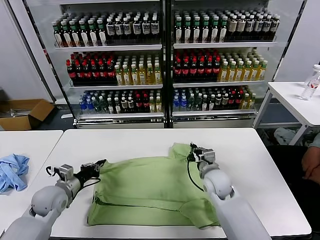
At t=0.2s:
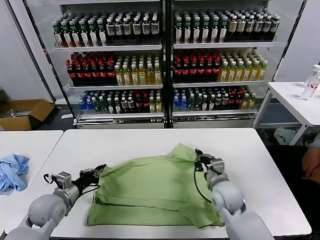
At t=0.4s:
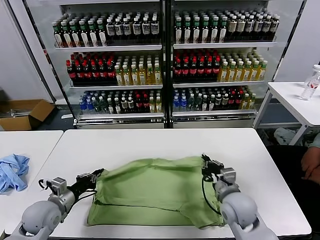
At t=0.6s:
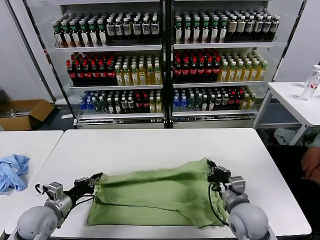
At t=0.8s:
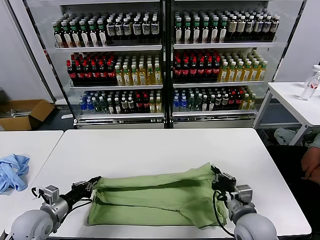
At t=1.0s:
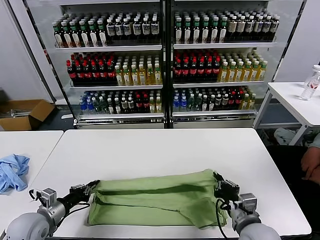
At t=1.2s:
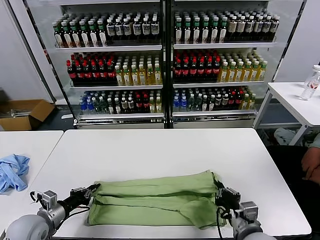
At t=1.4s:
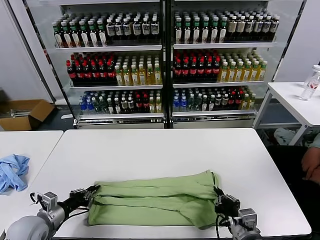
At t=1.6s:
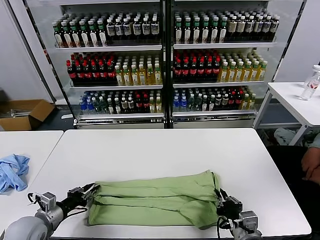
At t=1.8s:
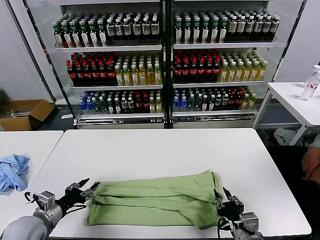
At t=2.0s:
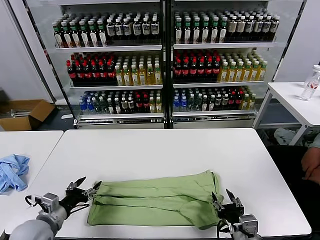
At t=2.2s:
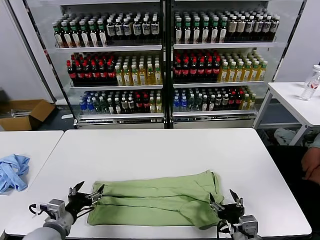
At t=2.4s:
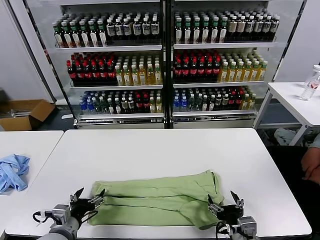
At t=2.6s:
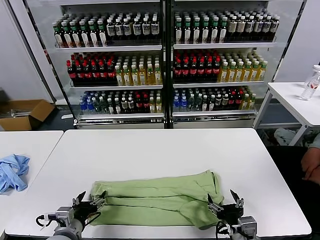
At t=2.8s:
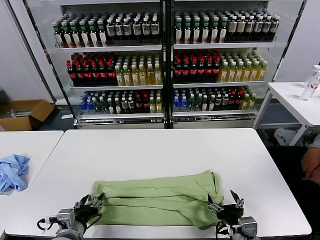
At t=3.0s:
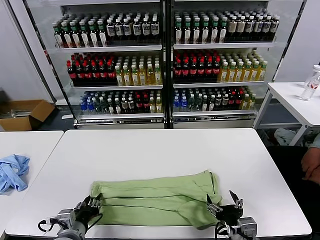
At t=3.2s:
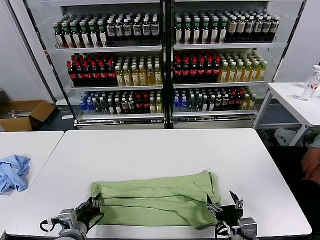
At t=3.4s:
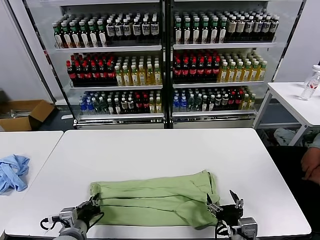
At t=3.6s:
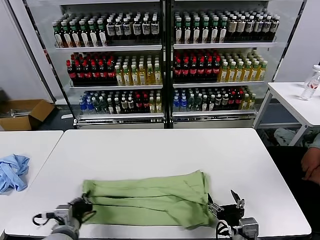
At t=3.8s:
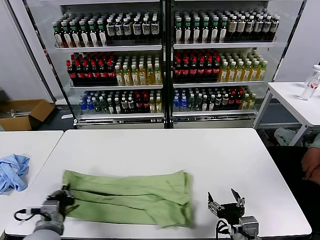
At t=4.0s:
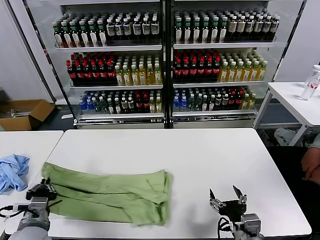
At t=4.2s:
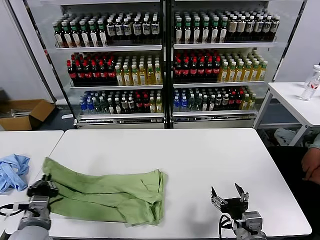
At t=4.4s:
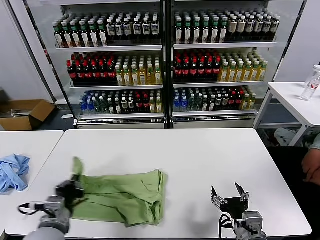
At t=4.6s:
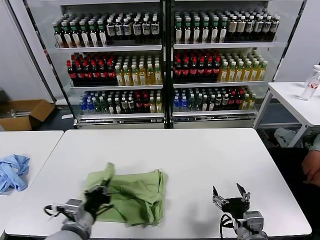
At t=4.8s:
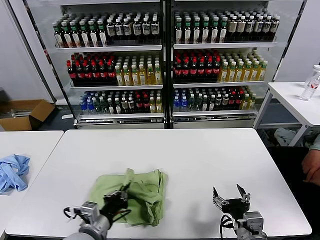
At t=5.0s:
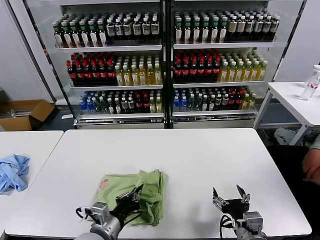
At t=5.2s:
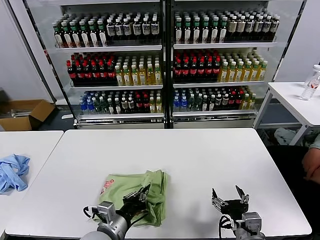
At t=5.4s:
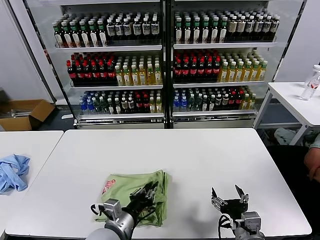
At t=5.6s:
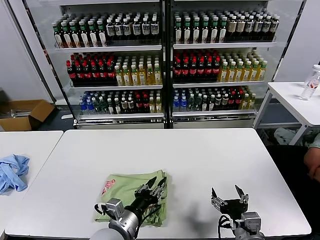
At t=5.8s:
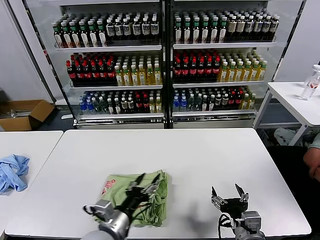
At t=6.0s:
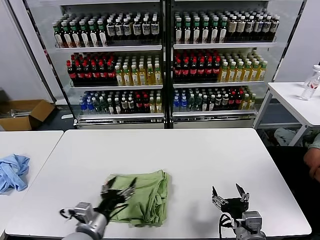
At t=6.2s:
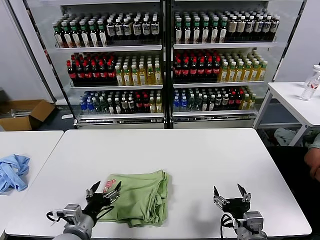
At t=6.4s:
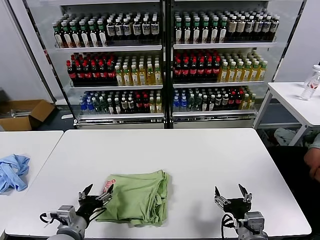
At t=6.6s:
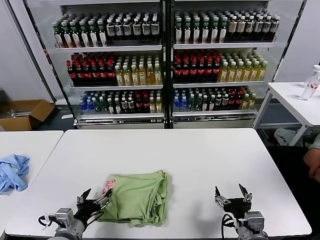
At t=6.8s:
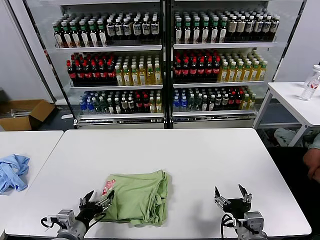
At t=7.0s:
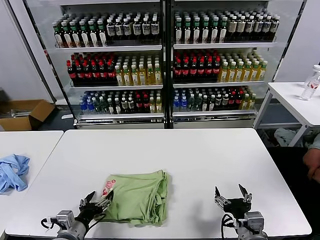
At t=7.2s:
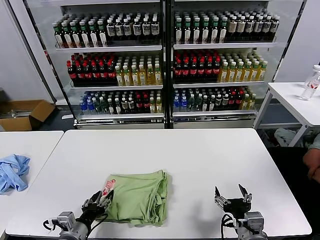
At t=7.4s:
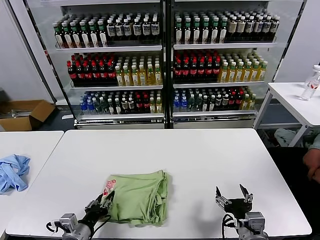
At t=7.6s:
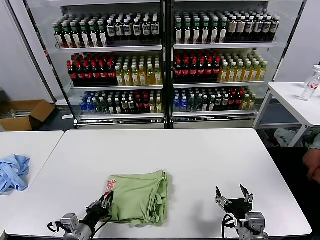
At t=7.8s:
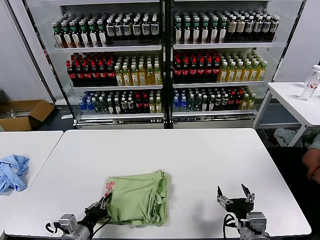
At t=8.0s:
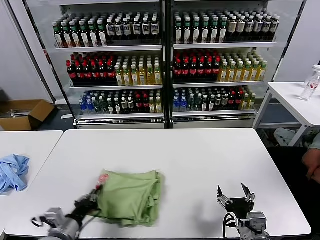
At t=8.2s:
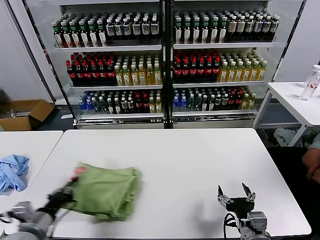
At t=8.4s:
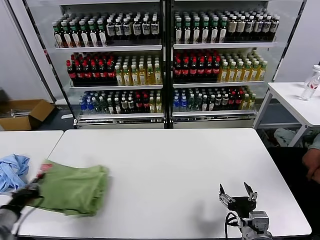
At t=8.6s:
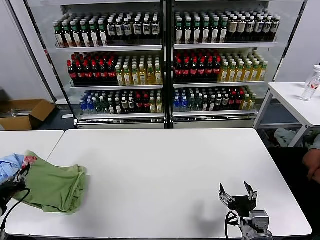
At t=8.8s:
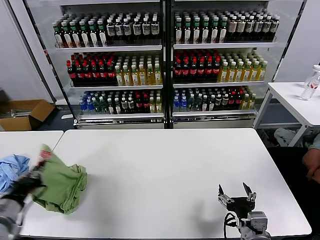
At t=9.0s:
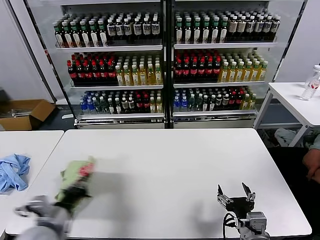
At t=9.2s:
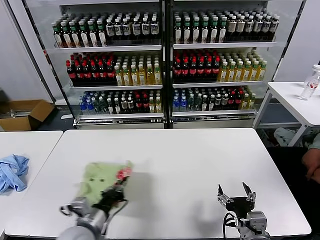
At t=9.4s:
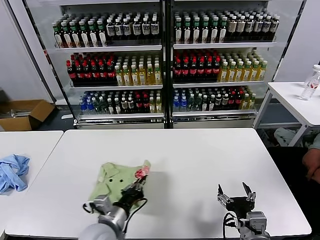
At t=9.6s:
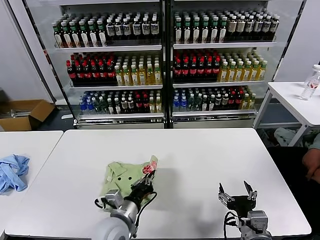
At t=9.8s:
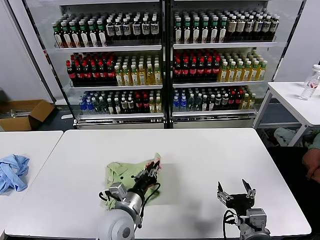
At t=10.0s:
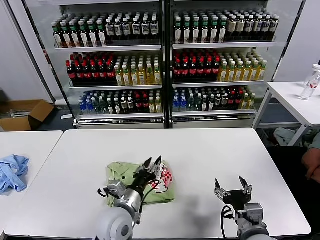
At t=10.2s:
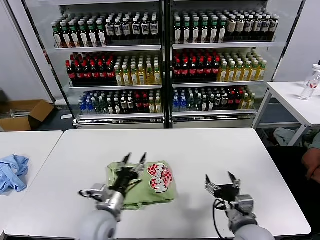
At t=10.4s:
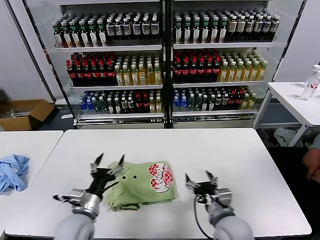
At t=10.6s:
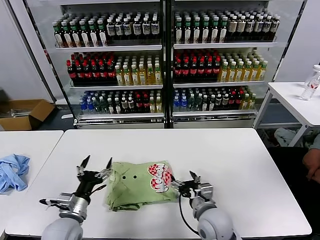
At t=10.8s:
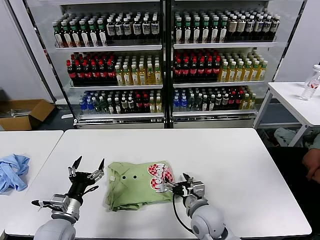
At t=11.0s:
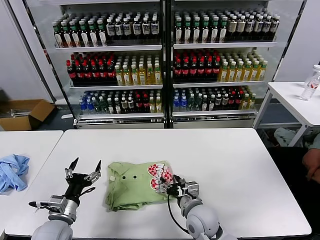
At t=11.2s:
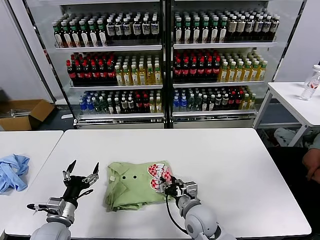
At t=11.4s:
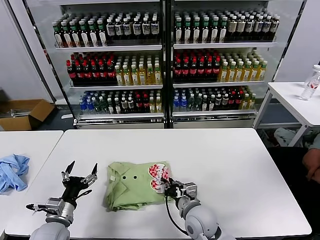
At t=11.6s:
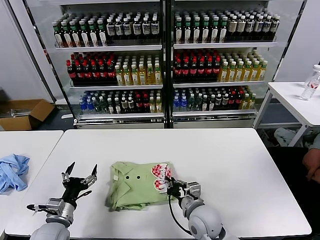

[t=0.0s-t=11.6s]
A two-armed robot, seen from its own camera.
Task of the whole recording: fold and organize the clothes.
Step, t=0.0s to t=1.6s: use both grippers to drag the upper edge of the fabric backward and fold it over the lower edge.
Step, t=1.8s to t=3.2s: use the left gripper to clamp the left edge of the fabric.
Step, t=3.6s to t=5.6s: use the left gripper to drag the left edge of the fabric to the left and folds it over the right edge.
Step, t=5.8s to t=10.0s: Flip the folded clothes over with left gripper.
t=0.0s to t=1.4s: The right gripper moves backward, approximately 20 cm; the left gripper moves backward, about 10 cm.
t=1.4s to t=2.8s: The right gripper opens its fingers; the left gripper shifts some 15 cm to the right and backward, and opens up.
t=2.8s to t=4.4s: The left gripper shifts some 5 cm upward, and closes its fingers.
t=4.4s to t=5.8s: The left gripper heads to the right, covering roughly 15 cm, and opens up.
t=5.8s to t=7.2s: The left gripper moves to the left and downward, about 15 cm.
t=7.2s to t=8.8s: The left gripper heads upward and to the left, covering some 20 cm, and closes.
t=8.8s to t=10.2s: The left gripper goes about 25 cm to the right, and opens its fingers.
t=10.2s to t=11.6s: The left gripper goes roughly 15 cm to the left. Meanwhile the right gripper is displaced to the left, forward and downward by roughly 15 cm, and closes.

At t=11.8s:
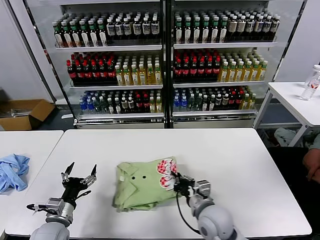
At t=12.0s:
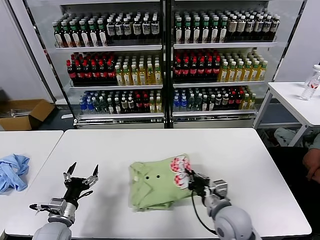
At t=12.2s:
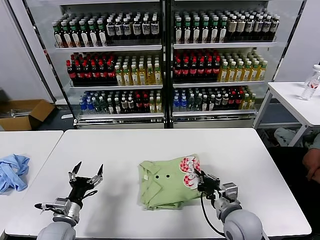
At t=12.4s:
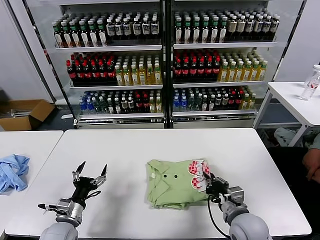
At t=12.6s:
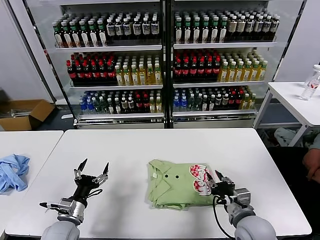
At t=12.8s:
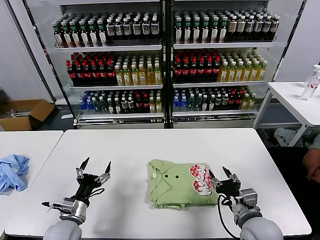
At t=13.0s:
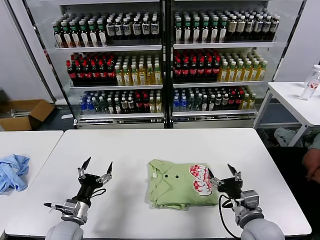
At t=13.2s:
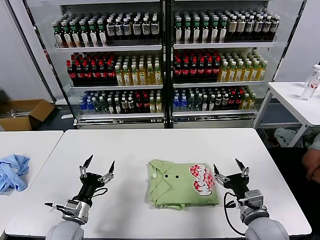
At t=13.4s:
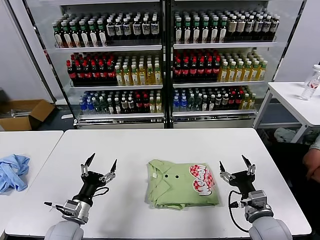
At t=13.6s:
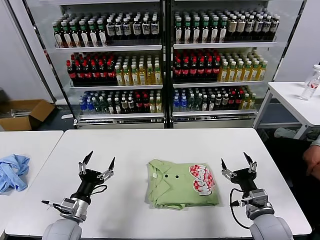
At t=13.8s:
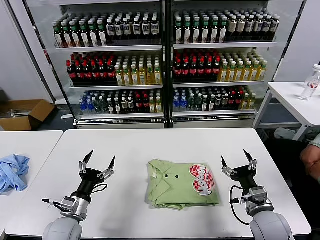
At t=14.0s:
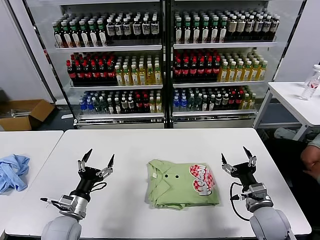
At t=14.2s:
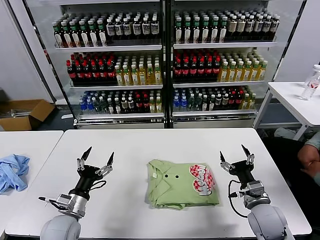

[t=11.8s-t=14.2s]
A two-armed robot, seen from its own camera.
Task of the whole recording: fold and organize the clothes.
t=11.8s to t=13.0s: The right gripper heads to the right and backward, covering roughly 10 cm, and opens.
t=13.0s to t=14.2s: The right gripper moves approximately 5 cm.

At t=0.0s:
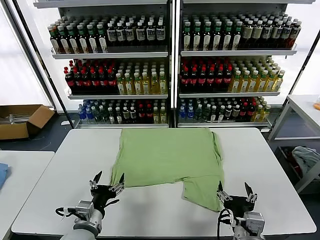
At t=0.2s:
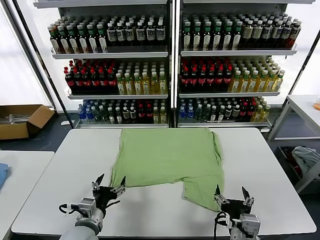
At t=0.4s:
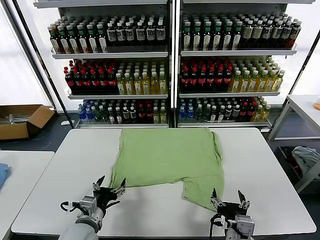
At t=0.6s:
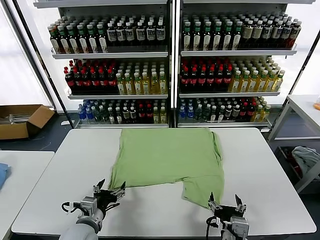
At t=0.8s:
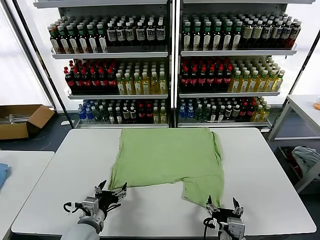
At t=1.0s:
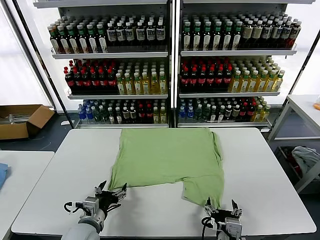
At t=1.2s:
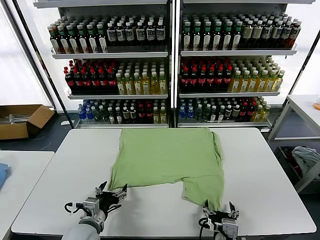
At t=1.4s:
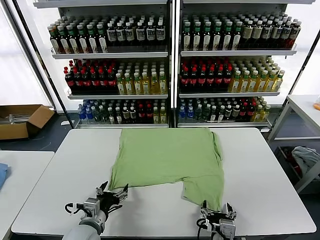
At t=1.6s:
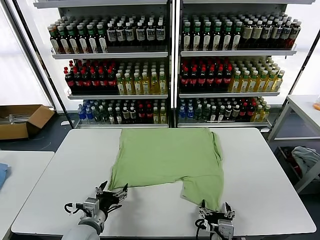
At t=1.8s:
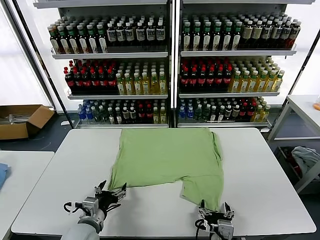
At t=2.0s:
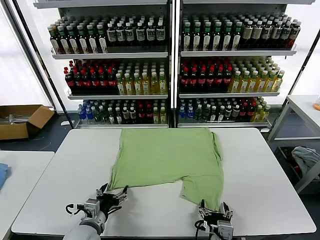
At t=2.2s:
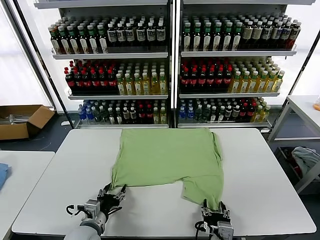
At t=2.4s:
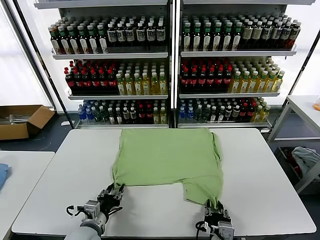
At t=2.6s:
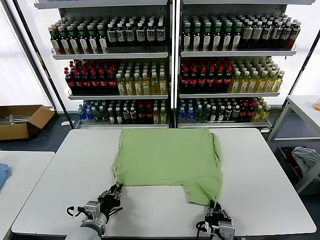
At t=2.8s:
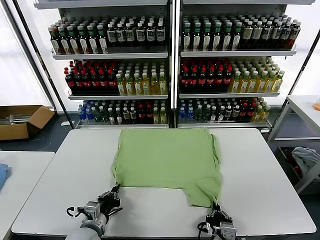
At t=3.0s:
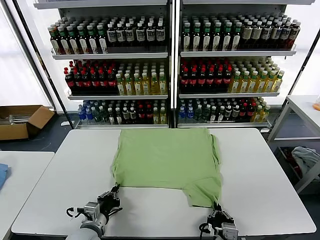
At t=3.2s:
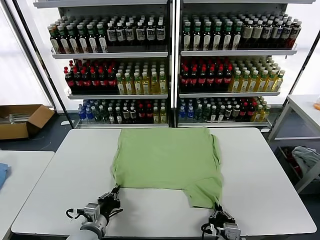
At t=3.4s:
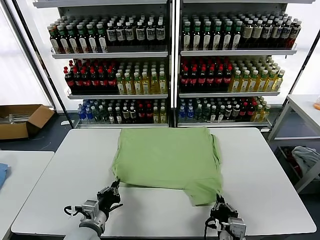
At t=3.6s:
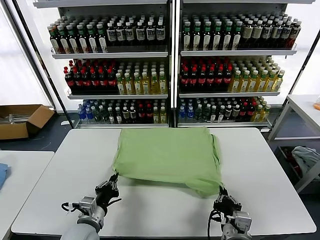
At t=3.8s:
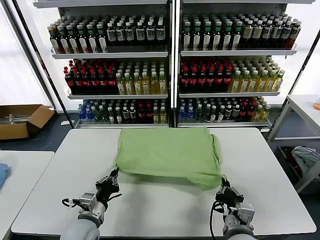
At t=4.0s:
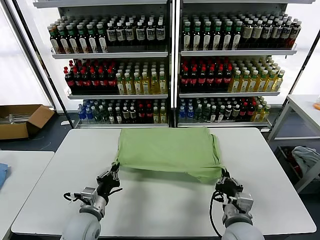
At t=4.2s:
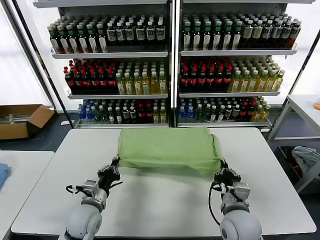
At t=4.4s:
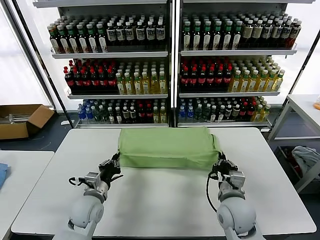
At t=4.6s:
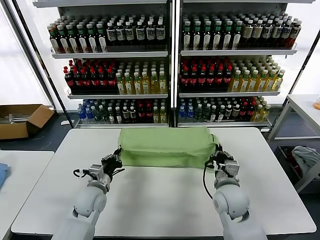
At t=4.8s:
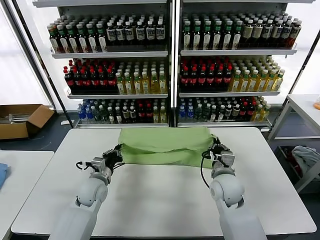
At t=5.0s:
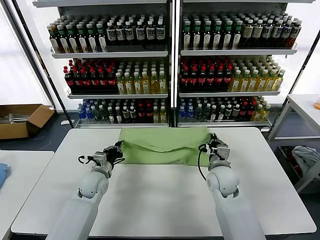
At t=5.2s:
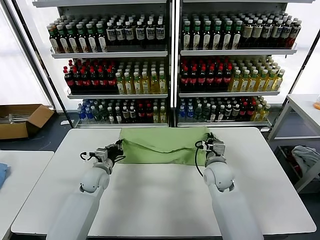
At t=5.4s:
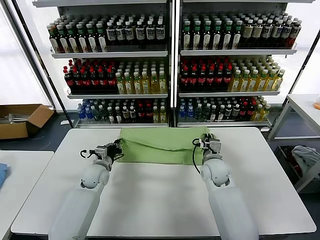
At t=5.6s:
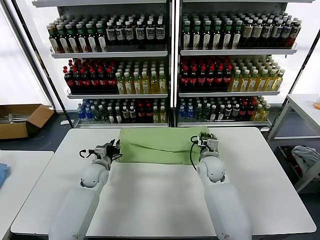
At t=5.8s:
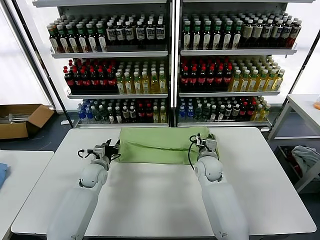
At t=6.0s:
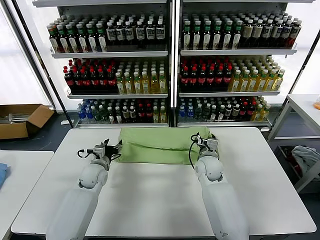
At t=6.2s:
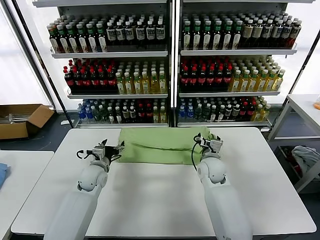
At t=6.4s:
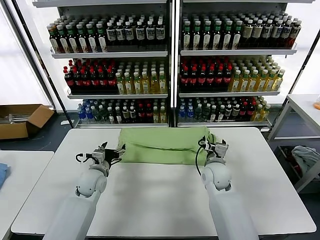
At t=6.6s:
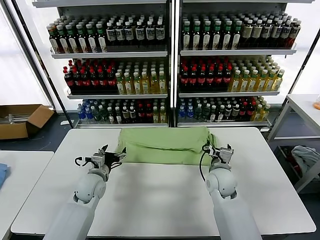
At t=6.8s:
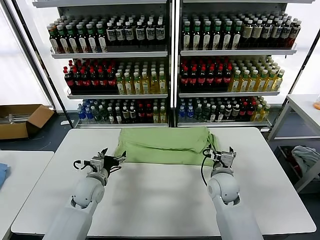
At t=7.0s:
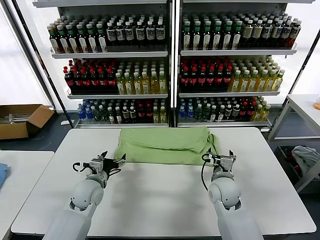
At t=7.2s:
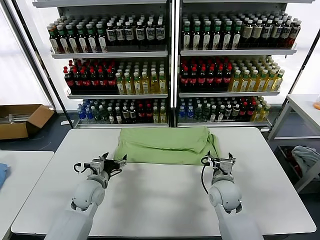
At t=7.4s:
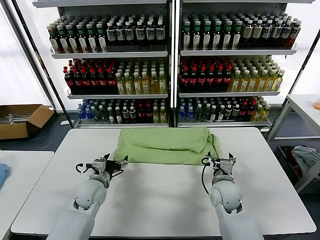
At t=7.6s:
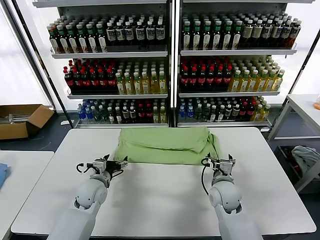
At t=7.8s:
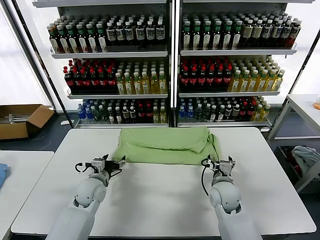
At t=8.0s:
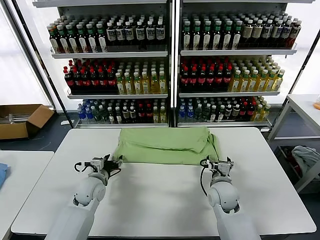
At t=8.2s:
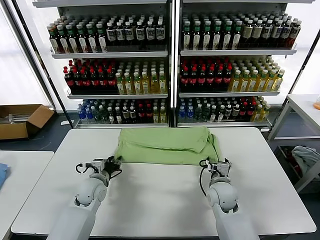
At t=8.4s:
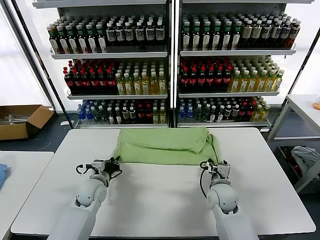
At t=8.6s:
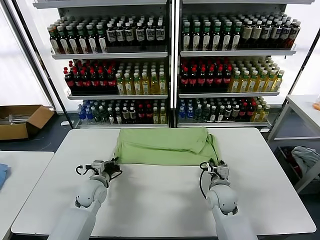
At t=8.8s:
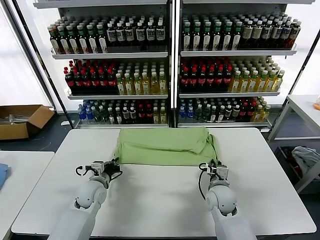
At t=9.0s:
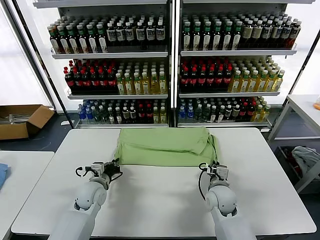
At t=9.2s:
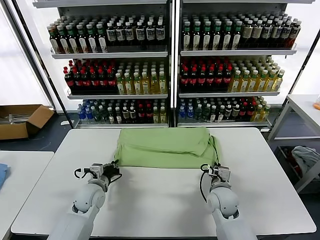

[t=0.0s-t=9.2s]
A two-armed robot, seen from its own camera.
Task of the whole recording: fold and organize the clothes.
Step, t=0.0s to t=2.8s: use both grippers simultaneously to clamp the lower edge of the clothing fabric.
Step, t=3.0s to t=6.0s: use both grippers to drag the lower edge of the fabric forward and fold it over the upper edge.
t=1.6s to t=3.0s: The right gripper closes up; the left gripper closes up.
t=3.0s to t=4.6s: The right gripper travels forward by some 20 cm; the left gripper shifts approximately 10 cm forward.
t=4.6s to t=6.2s: The grippers both shift forward by about 10 cm. The left gripper opens, while the right gripper opens its fingers.
t=6.2s to t=7.6s: Both grippers move backward, about 5 cm.
t=7.6s to t=9.2s: The right gripper closes; the left gripper closes up.
